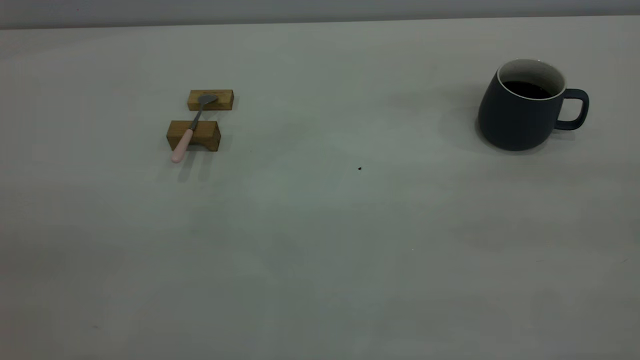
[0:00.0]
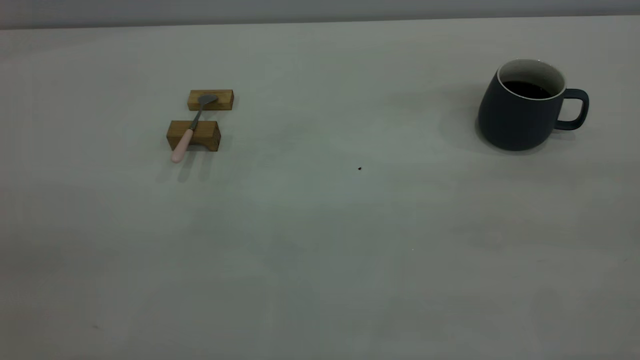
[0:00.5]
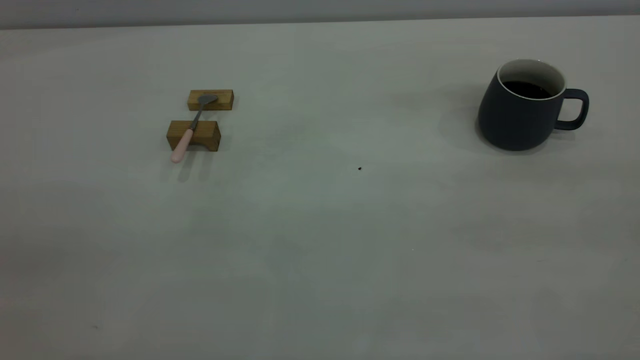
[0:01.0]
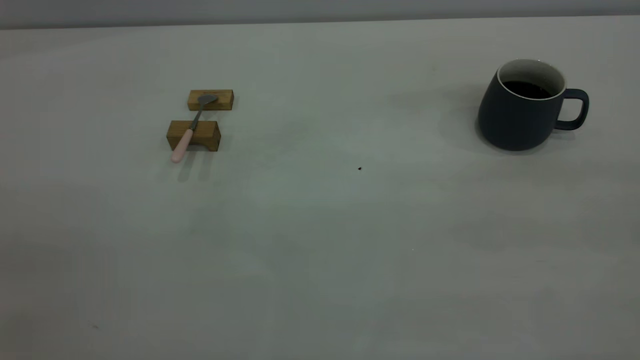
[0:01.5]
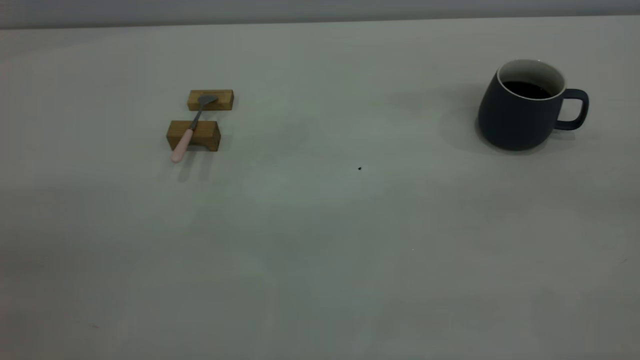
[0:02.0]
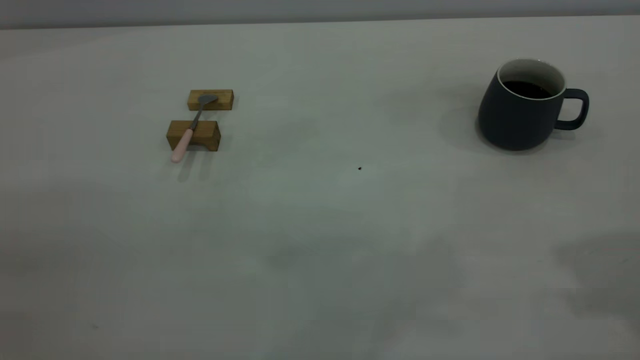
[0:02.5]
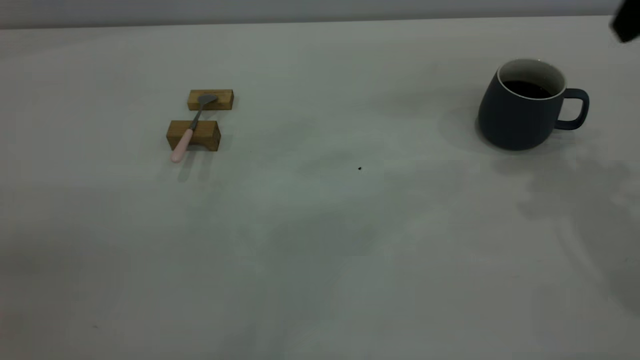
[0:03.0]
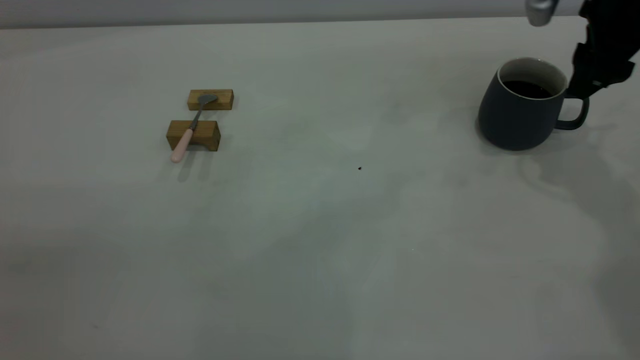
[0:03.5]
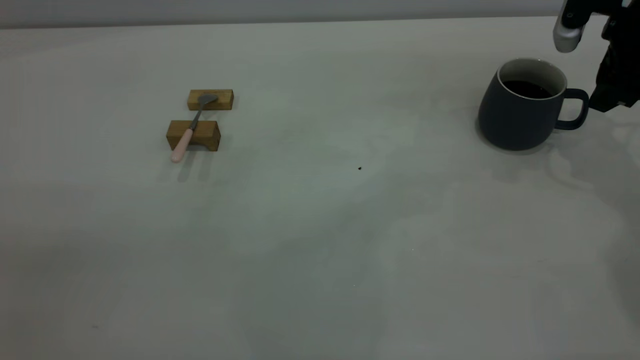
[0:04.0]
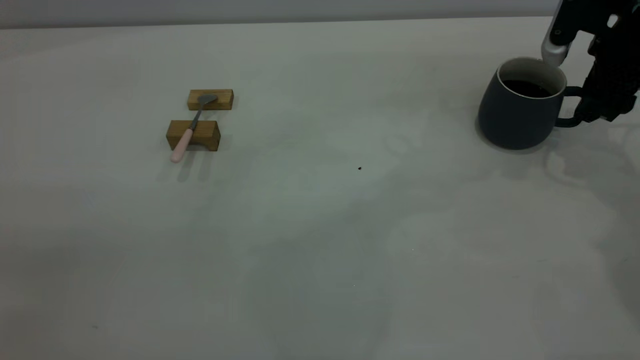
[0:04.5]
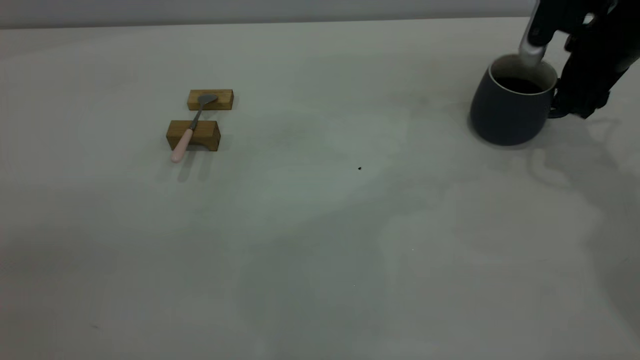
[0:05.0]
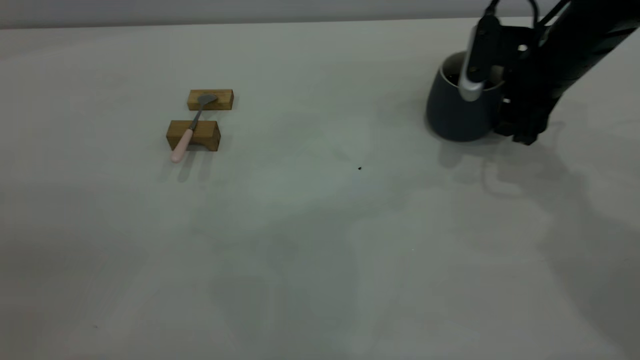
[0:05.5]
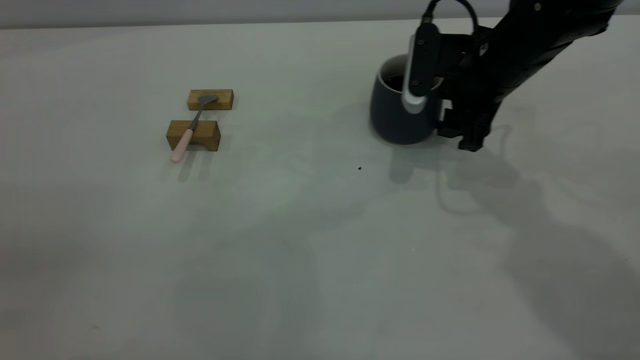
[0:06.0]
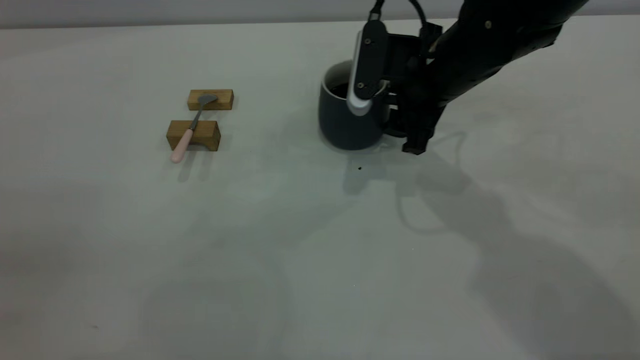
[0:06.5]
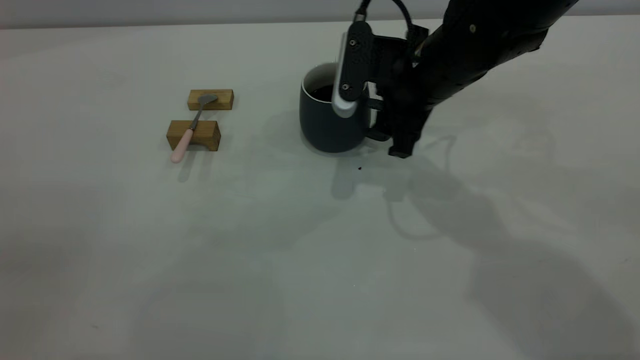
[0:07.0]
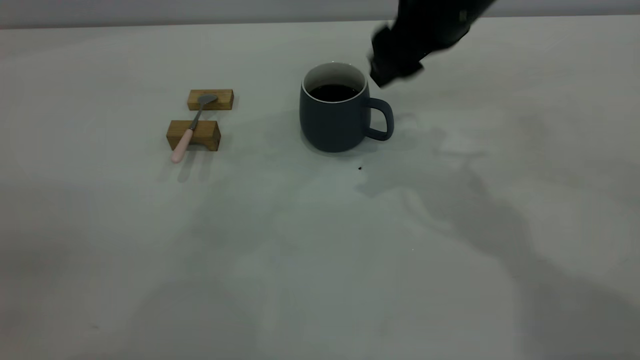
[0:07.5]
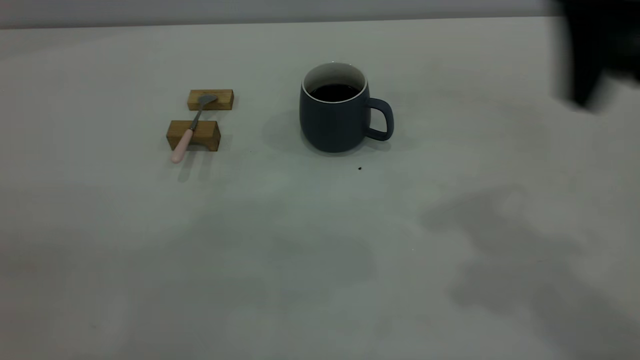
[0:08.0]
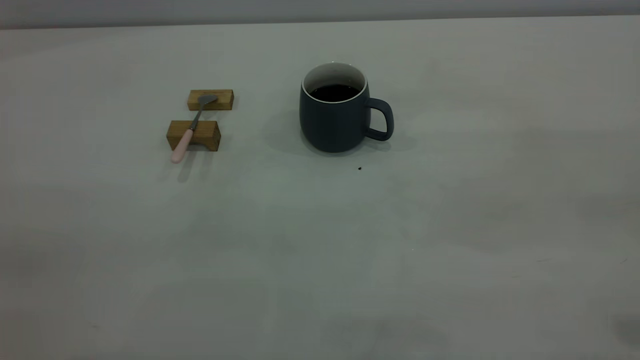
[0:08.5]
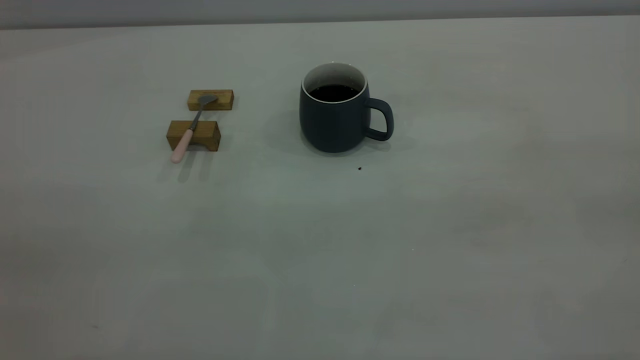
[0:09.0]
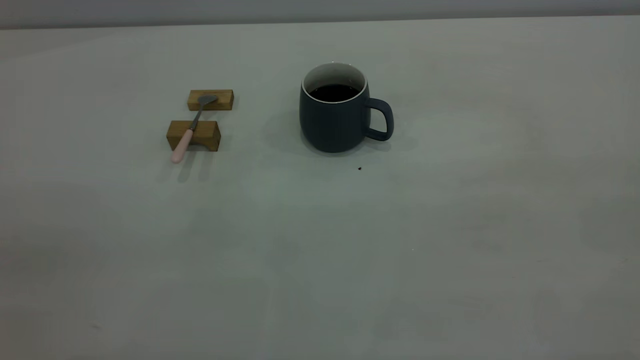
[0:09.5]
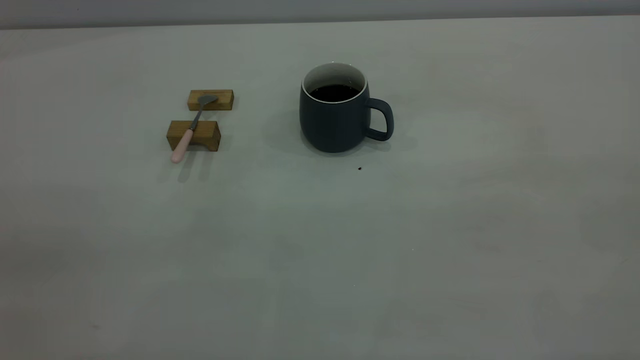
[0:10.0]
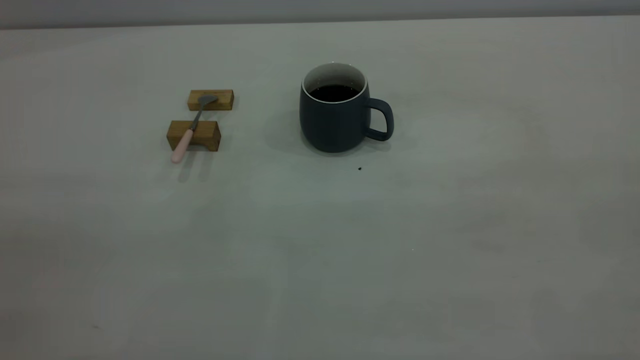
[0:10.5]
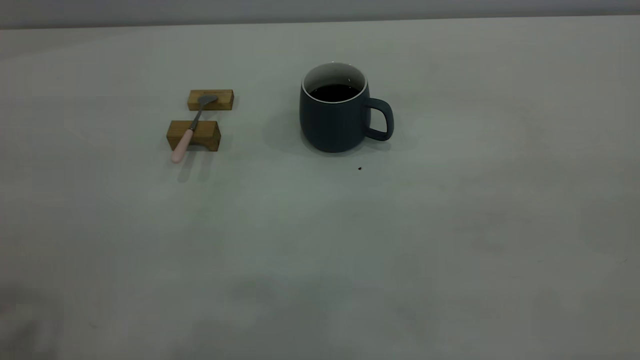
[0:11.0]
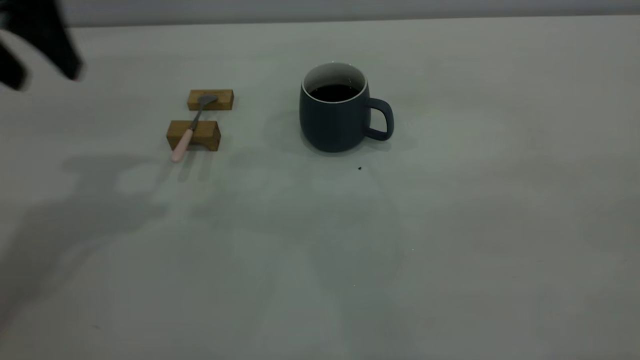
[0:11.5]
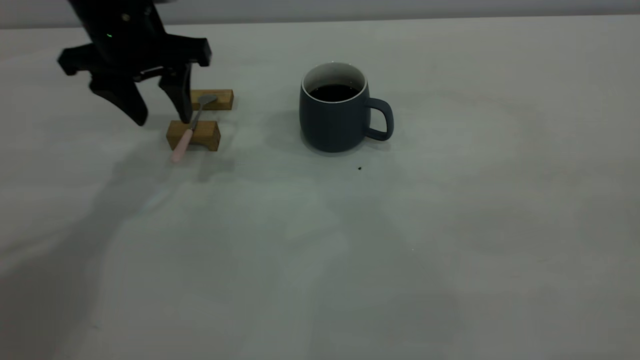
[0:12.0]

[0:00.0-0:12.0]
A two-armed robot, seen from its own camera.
Step, 0.0 to 7.5 s: Move the cup with coffee to the center of view.
2.0 to 4.0 s: The right gripper is displaced forward and downward by some 40 cm, and opens up.
4.0 to 6.0 s: The right gripper heads to the left, covering approximately 15 cm.
6.0 to 8.0 s: The right gripper goes about 30 cm upward and backward.
8.0 to 10.0 s: The right gripper moves backward and to the right, approximately 25 cm.
10.0 to 12.0 s: The left gripper travels forward and downward by some 50 cm.

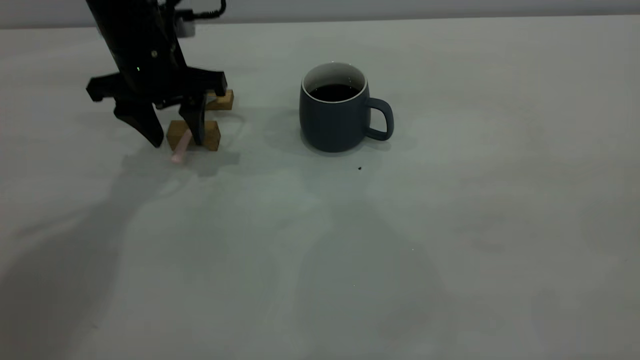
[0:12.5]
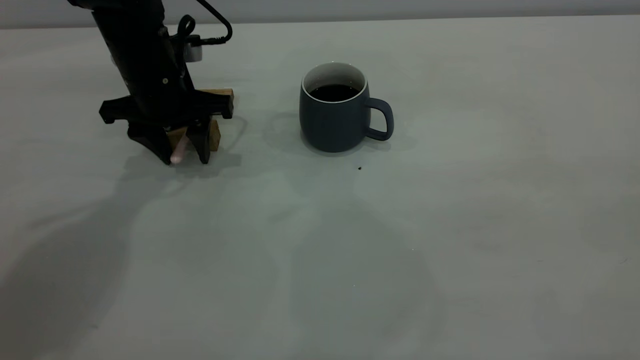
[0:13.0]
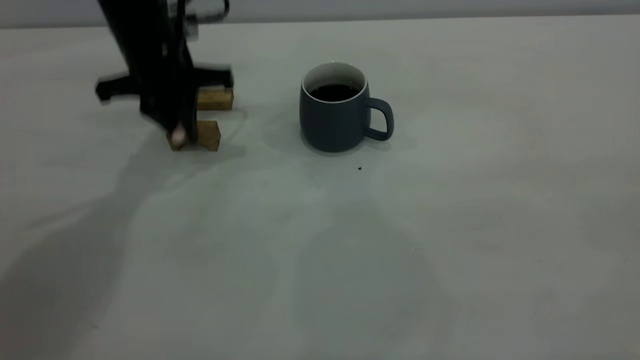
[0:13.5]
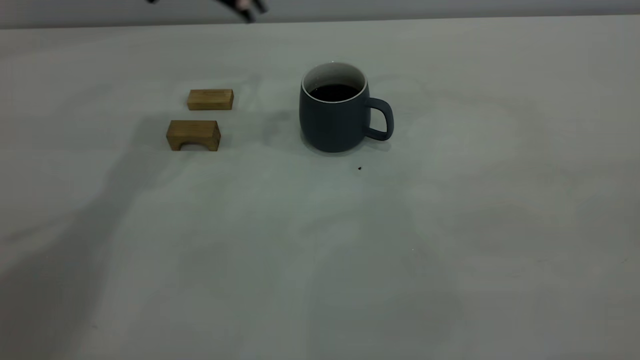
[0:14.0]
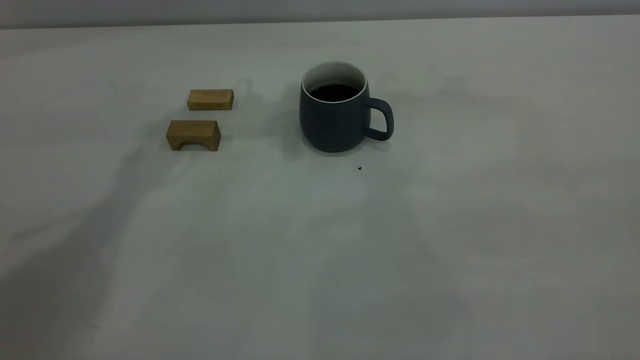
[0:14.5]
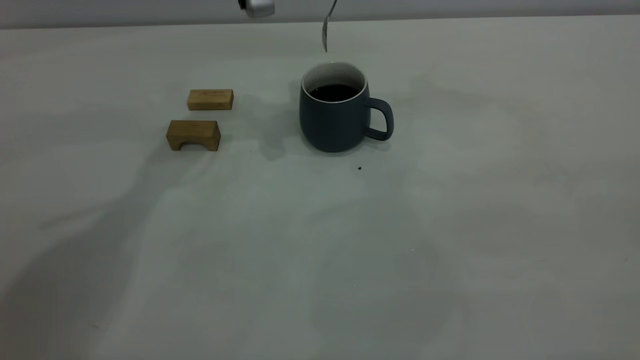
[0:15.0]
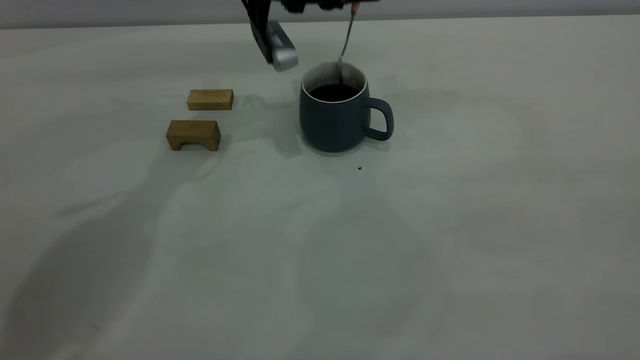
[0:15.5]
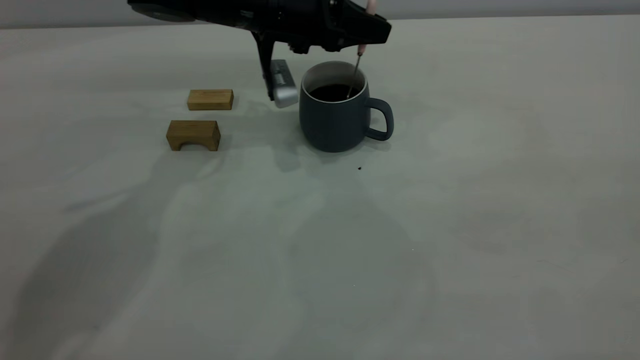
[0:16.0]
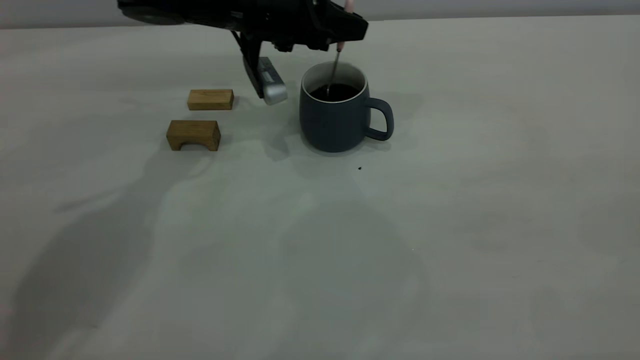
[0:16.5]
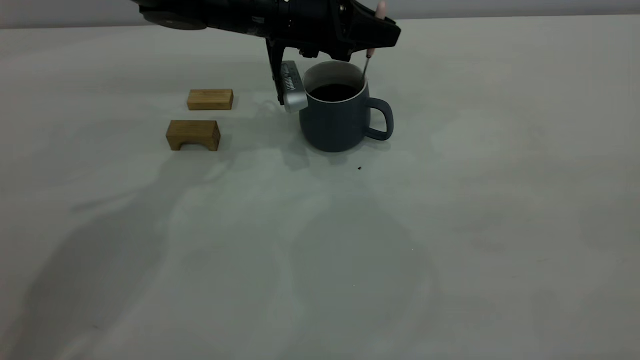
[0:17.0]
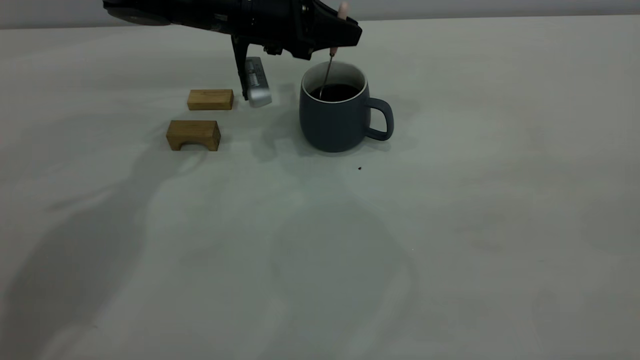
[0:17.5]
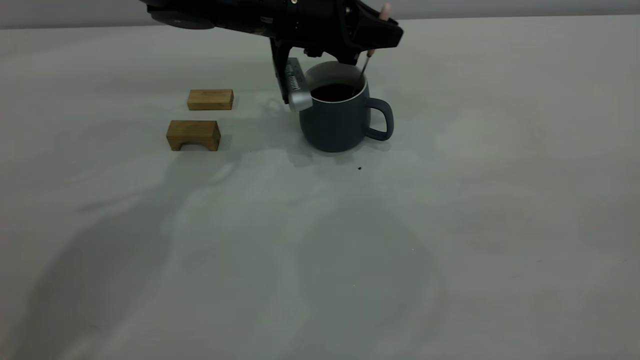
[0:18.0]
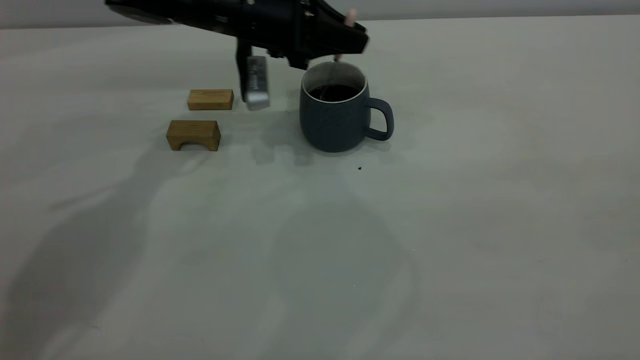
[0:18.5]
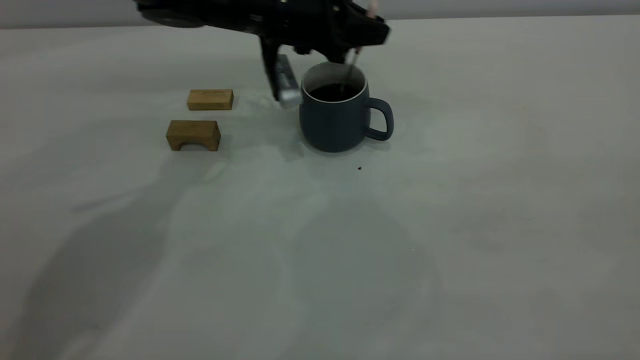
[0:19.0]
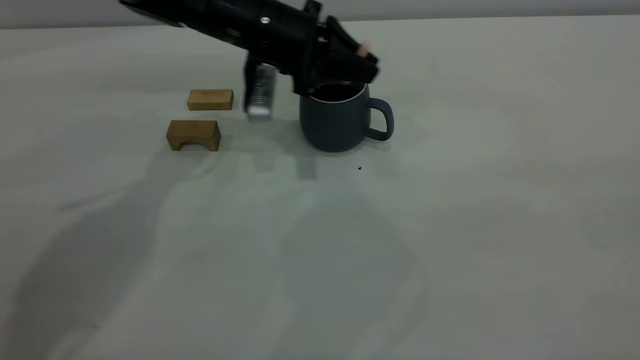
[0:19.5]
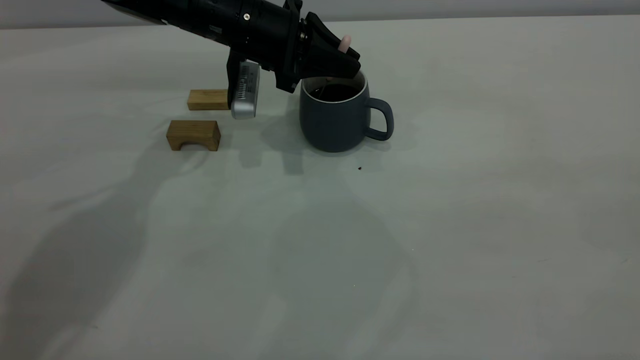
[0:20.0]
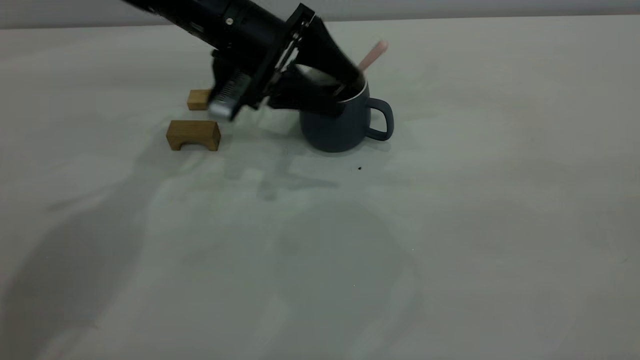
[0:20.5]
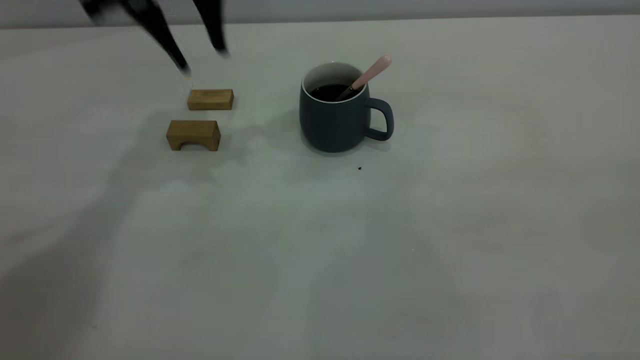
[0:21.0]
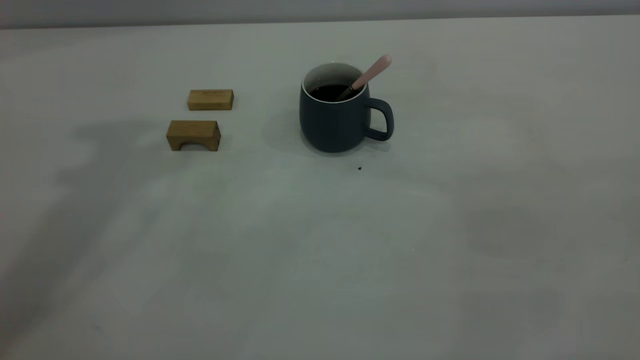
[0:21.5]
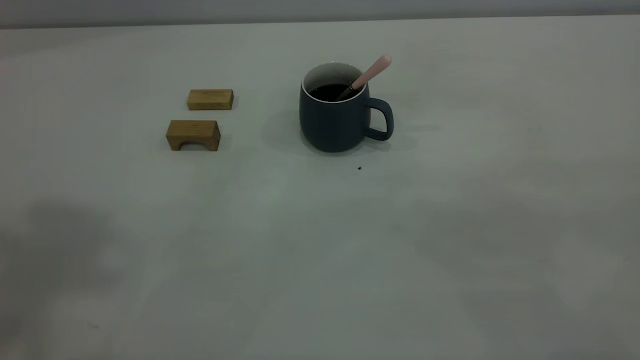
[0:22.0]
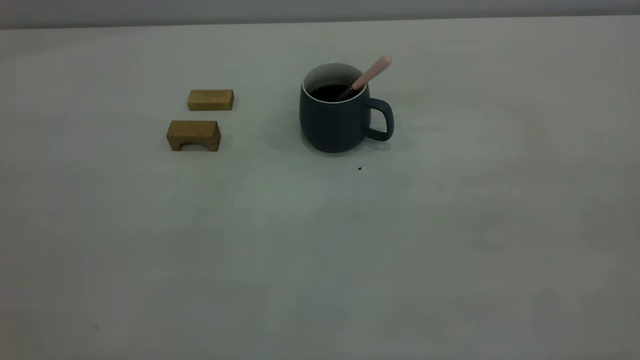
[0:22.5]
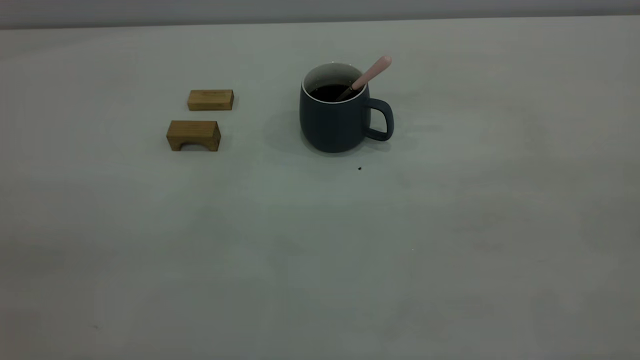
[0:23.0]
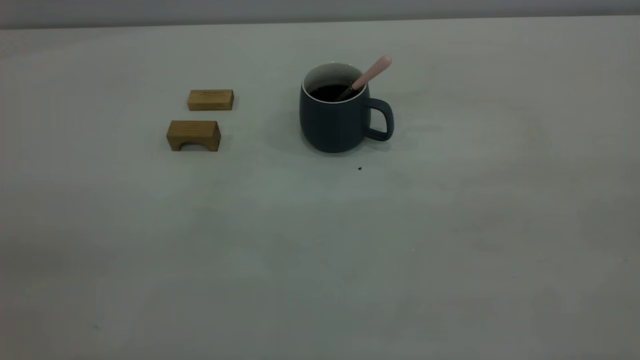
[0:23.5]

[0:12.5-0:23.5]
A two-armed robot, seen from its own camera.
Step, 14.0 to 20.5 s: Stir the coffee in the cup.
12.5 to 14.5 s: The left gripper shifts about 20 cm upward and to the right, and closes its fingers.
14.5 to 16.0 s: The left gripper heads downward, covering about 15 cm.
16.0 to 18.0 s: The grippers make only small movements.
18.0 to 20.0 s: The left gripper goes left and right, roughly 5 cm each way, reversing 2 times.
20.0 to 21.5 s: The left gripper shifts some 40 cm upward, and opens.
